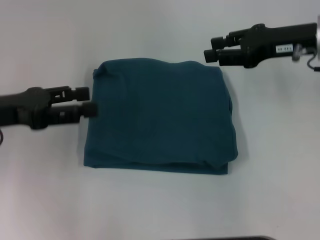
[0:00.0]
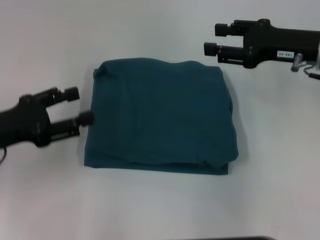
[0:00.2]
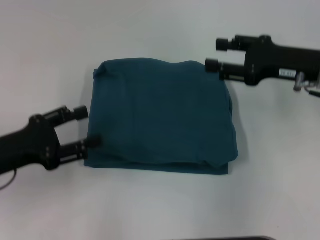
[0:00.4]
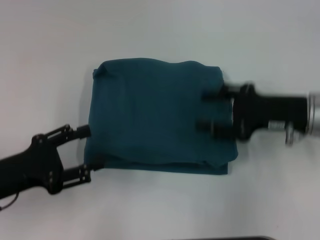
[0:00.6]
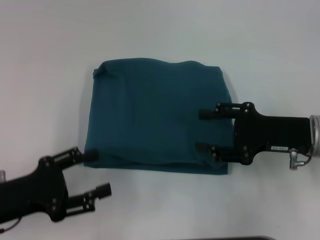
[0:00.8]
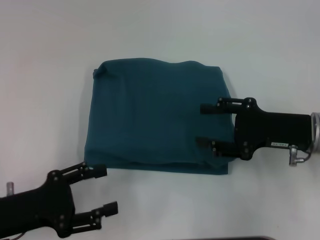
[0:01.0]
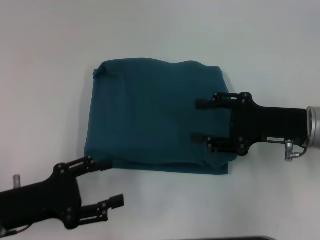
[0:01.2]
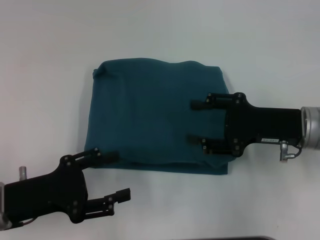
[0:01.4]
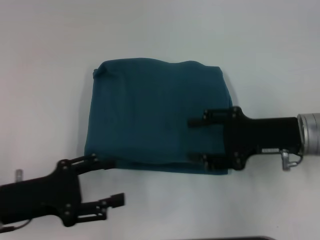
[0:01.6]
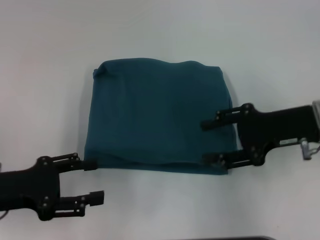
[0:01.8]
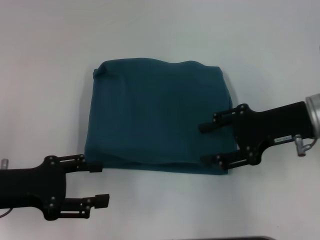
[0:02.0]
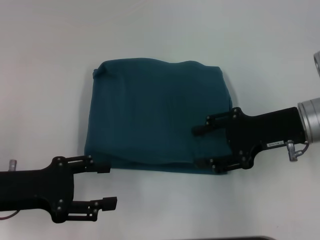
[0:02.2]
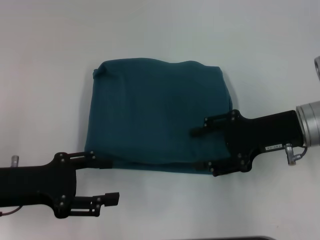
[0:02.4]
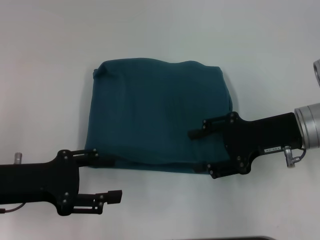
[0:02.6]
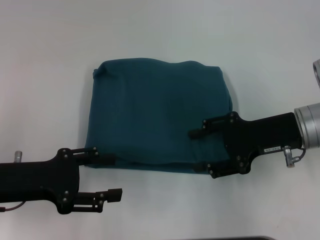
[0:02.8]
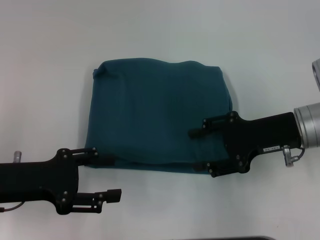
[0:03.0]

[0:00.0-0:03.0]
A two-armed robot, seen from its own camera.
0:00.0 to 0:01.6: The two grippers go about 10 cm backward and downward.
0:01.6 to 0:03.0: The grippers move only a little.

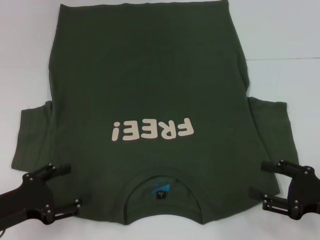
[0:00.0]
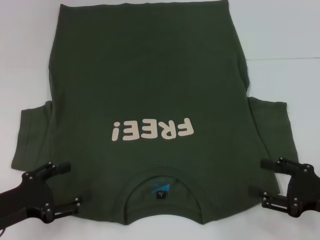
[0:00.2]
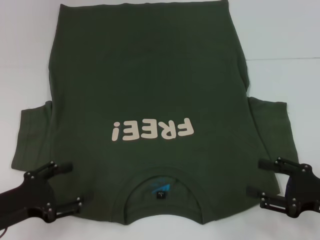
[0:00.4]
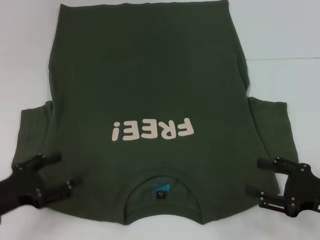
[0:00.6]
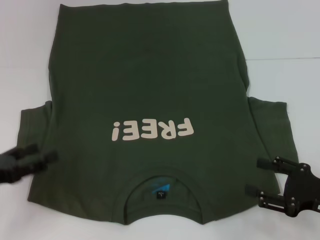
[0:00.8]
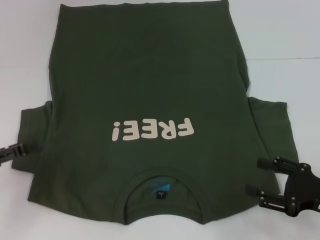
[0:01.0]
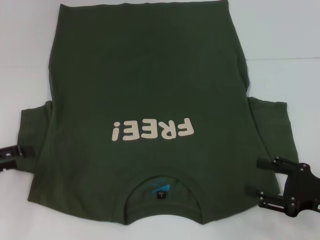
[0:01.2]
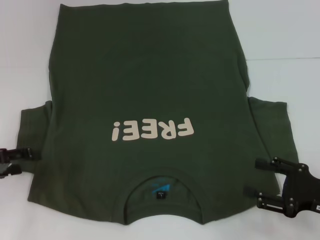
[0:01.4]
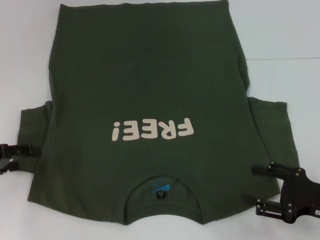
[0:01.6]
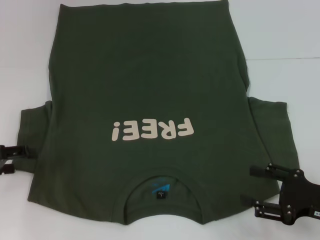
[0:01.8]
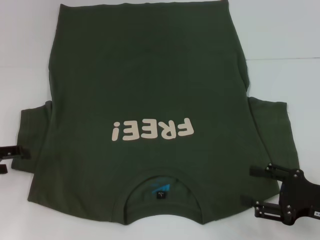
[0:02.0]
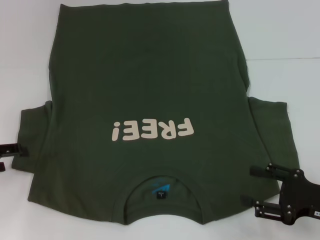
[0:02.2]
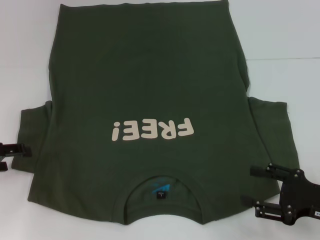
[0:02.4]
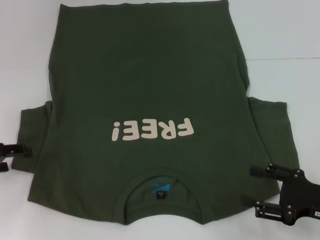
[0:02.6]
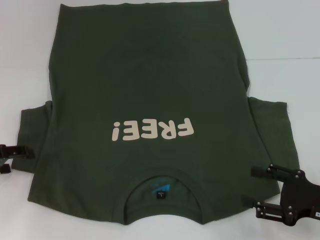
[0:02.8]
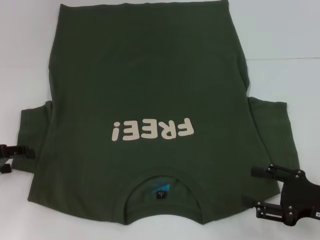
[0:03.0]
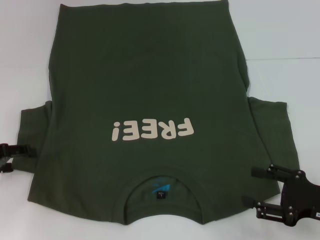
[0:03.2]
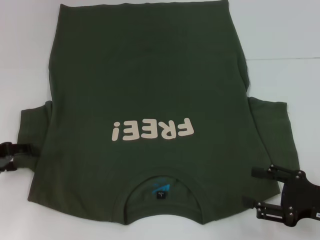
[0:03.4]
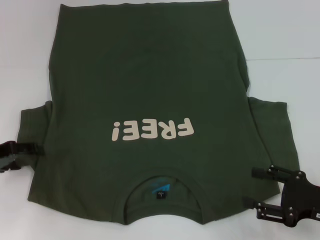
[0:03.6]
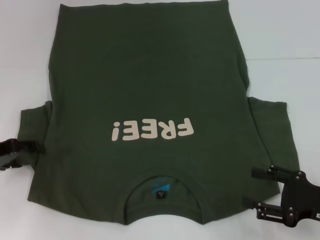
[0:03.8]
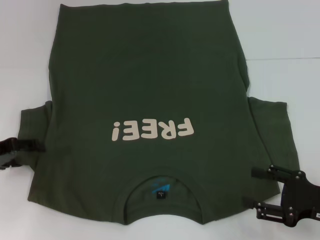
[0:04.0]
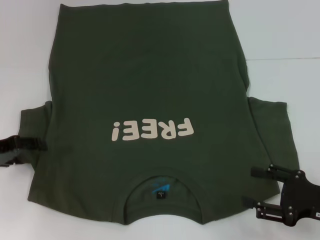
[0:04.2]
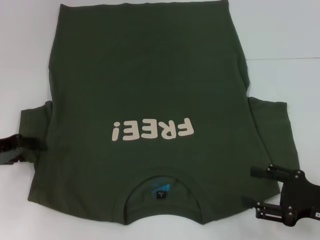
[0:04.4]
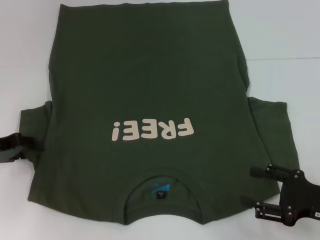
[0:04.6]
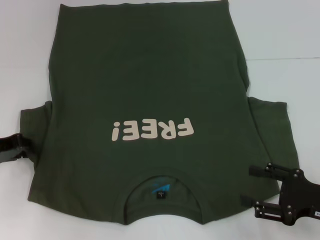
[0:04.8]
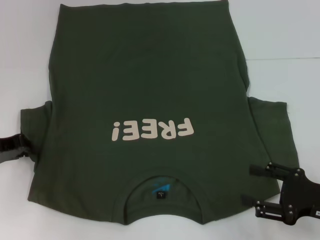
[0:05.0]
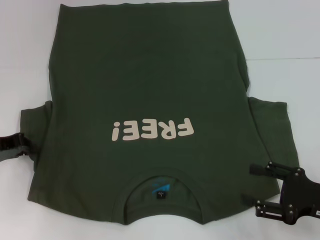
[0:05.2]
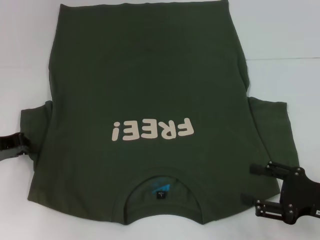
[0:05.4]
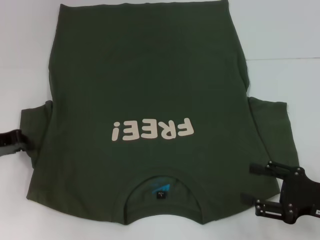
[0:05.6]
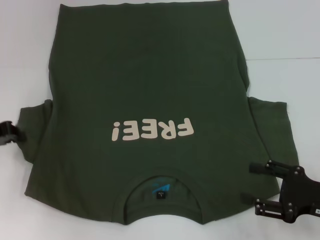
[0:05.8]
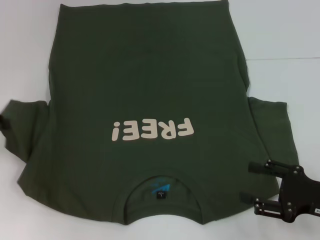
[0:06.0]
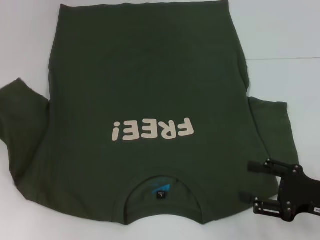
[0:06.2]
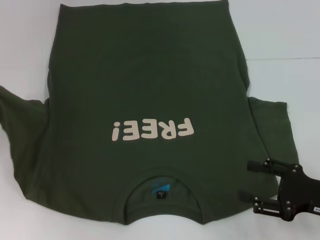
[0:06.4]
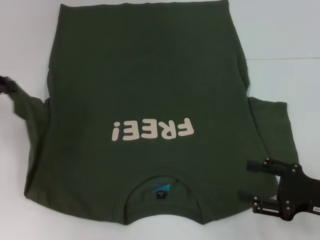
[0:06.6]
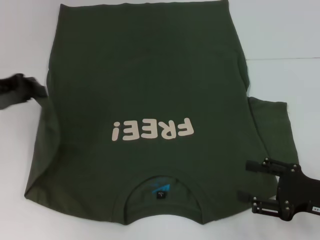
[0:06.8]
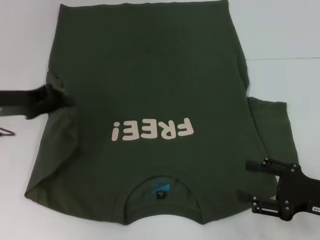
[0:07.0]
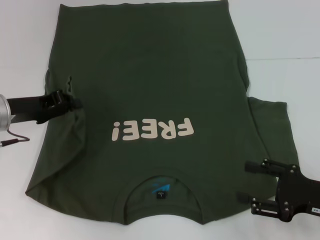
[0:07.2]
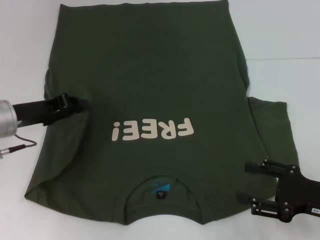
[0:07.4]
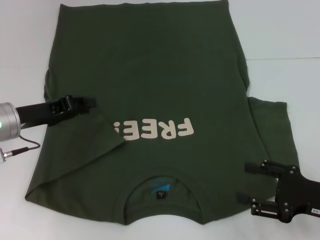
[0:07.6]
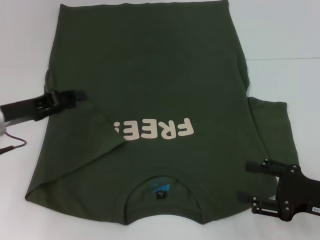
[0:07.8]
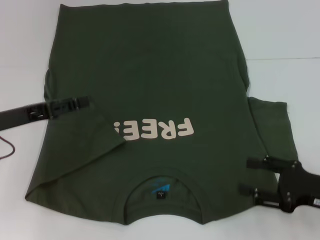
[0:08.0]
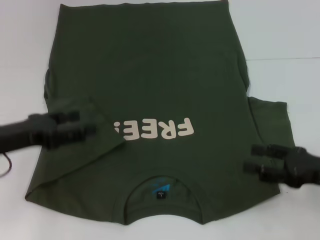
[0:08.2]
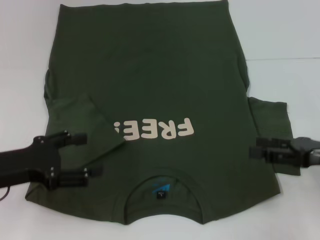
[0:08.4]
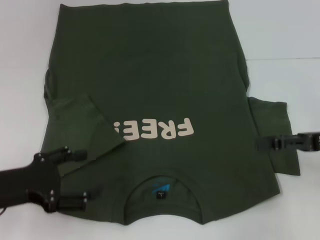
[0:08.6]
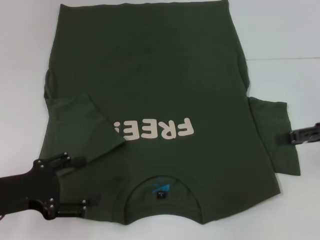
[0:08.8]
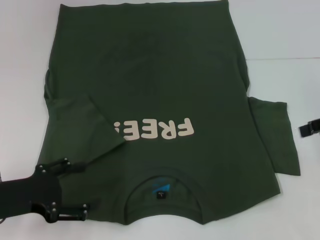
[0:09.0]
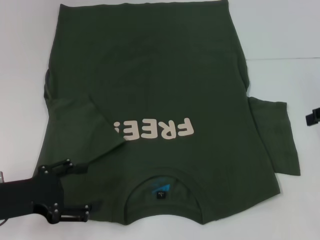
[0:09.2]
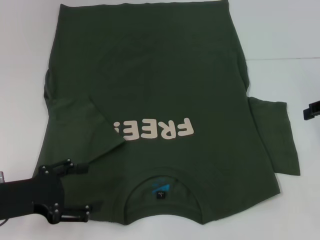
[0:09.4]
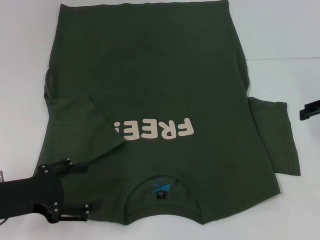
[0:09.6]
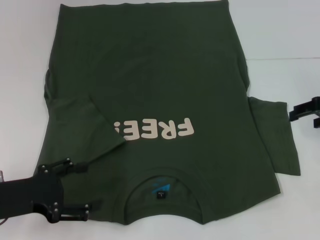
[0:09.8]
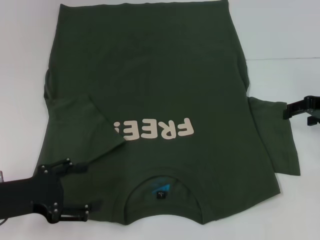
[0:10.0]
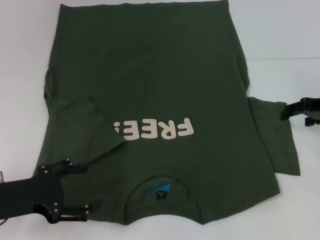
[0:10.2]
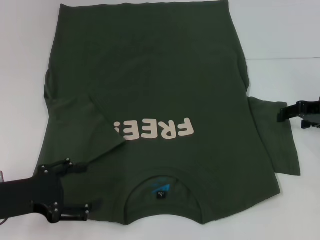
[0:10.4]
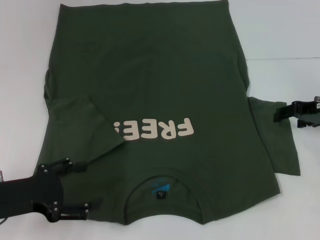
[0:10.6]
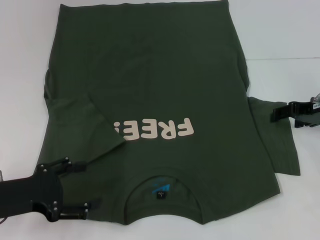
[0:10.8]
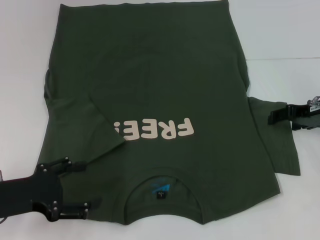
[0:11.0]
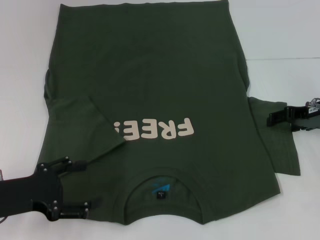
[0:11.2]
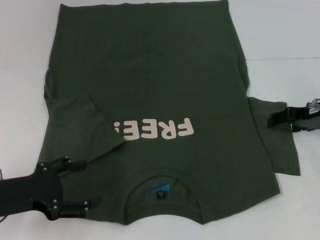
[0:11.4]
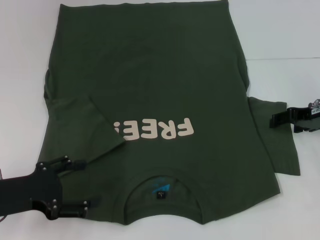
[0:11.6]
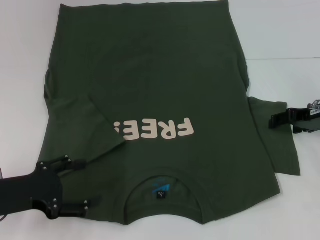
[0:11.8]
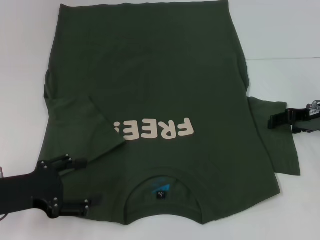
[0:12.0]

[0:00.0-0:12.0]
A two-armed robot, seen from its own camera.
Step, 0:00.0 to 0:08.0: Fold the bottom left sleeve with your left hand.
0:00.0 to 0:01.6: The left gripper heads forward, to the left and upward, covering some 10 cm.
0:01.6 to 0:04.4: The grippers move only a little.
0:04.4 to 0:06.0: The left gripper ends up about 5 cm from where it was, and closes up.
0:06.0 to 0:07.6: The left gripper goes approximately 10 cm to the right.
0:07.6 to 0:09.0: The left gripper shifts approximately 10 cm backward, and opens its fingers; the right gripper moves upward and forward, approximately 20 cm.
0:09.0 to 0:10.4: The right gripper is displaced downward and forward by some 10 cm.
0:10.4 to 0:12.0: The grippers stay close to where they were, moving slightly.

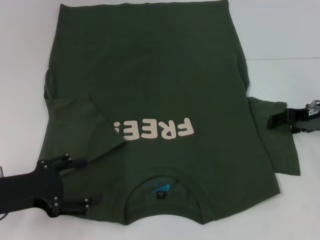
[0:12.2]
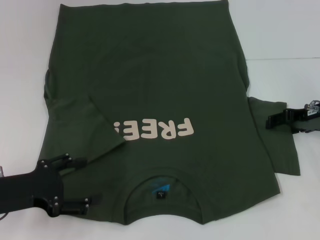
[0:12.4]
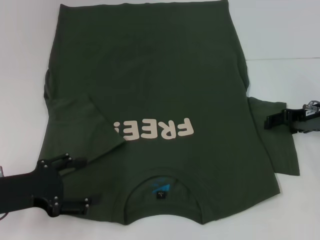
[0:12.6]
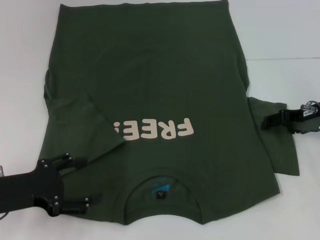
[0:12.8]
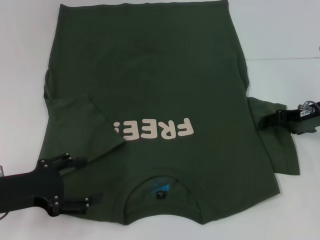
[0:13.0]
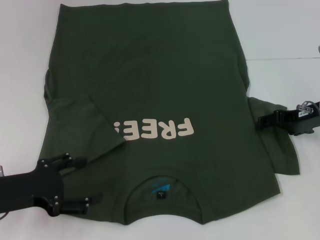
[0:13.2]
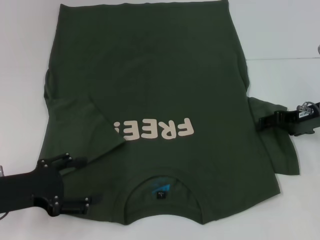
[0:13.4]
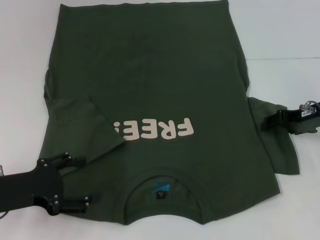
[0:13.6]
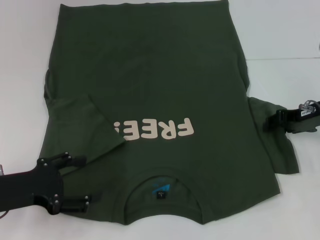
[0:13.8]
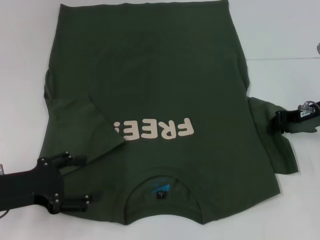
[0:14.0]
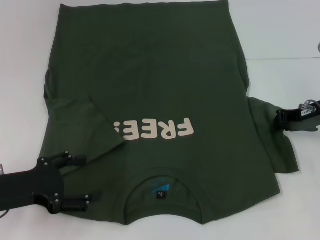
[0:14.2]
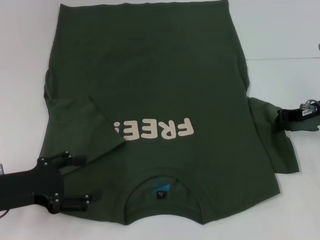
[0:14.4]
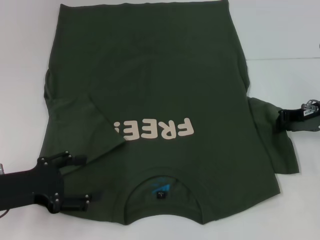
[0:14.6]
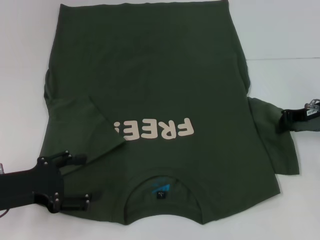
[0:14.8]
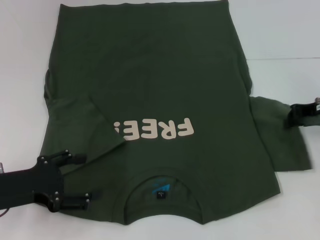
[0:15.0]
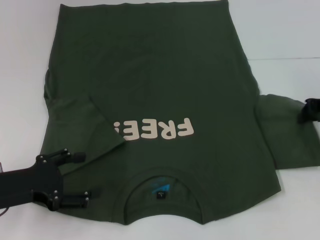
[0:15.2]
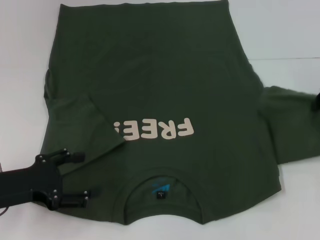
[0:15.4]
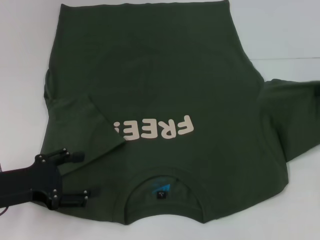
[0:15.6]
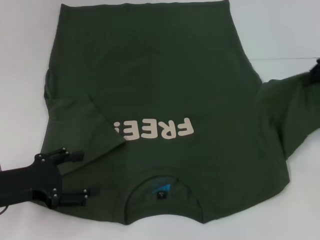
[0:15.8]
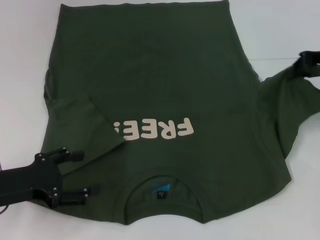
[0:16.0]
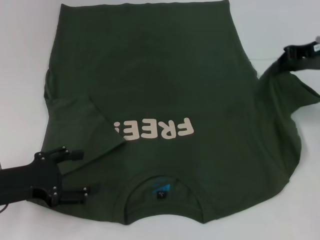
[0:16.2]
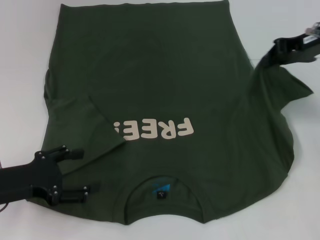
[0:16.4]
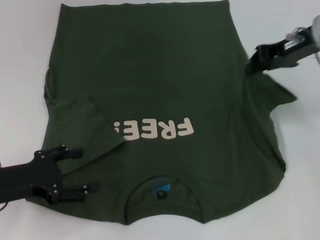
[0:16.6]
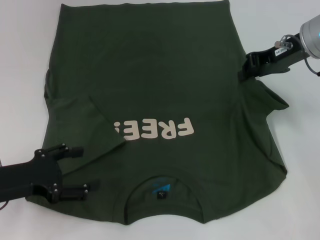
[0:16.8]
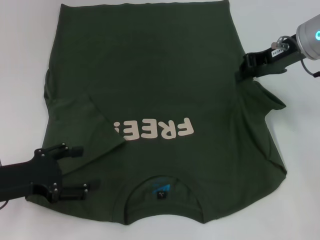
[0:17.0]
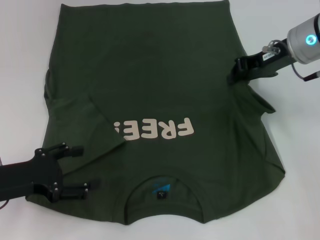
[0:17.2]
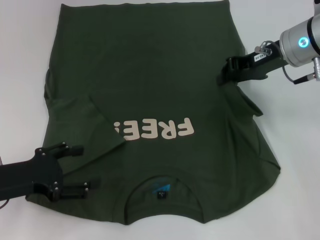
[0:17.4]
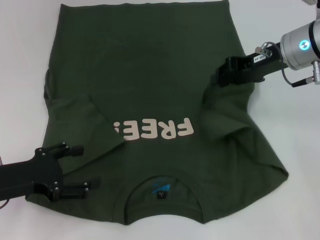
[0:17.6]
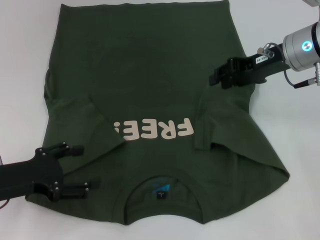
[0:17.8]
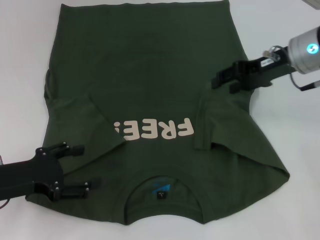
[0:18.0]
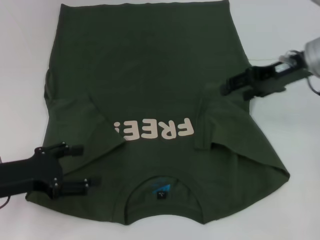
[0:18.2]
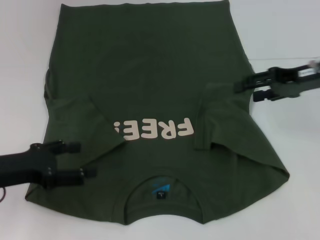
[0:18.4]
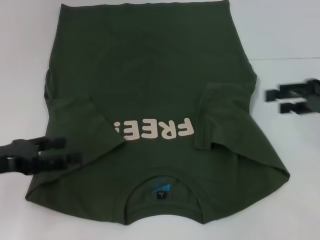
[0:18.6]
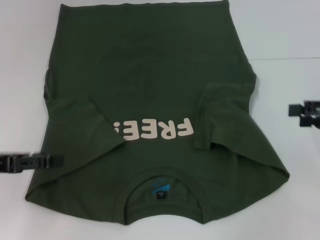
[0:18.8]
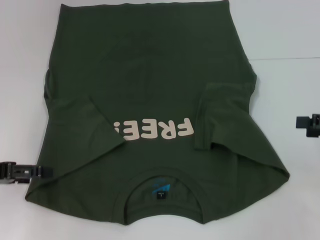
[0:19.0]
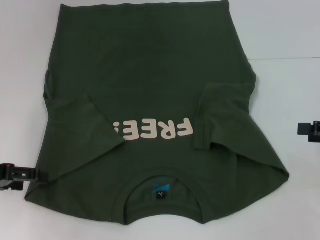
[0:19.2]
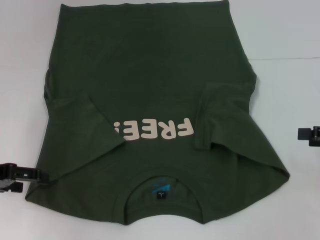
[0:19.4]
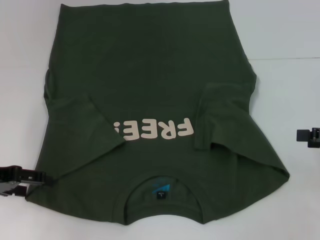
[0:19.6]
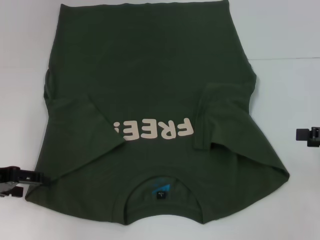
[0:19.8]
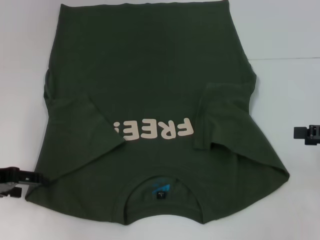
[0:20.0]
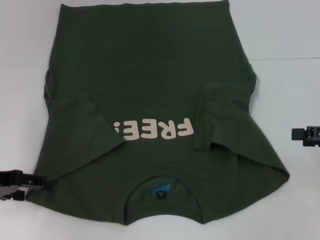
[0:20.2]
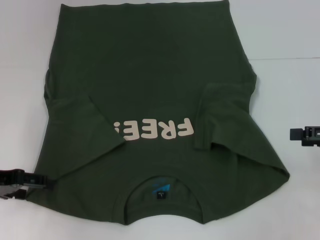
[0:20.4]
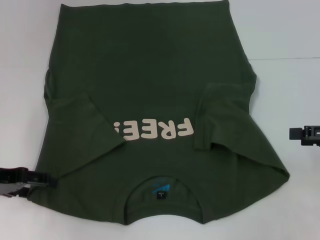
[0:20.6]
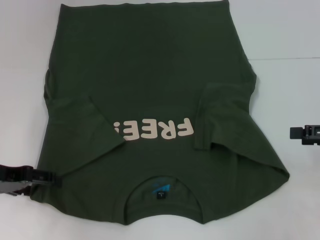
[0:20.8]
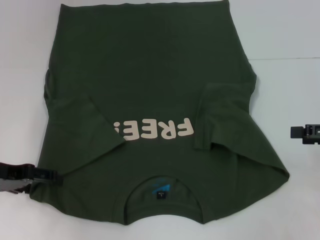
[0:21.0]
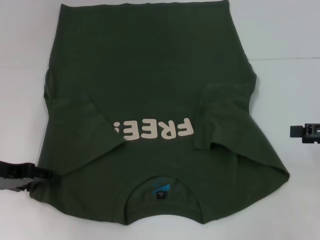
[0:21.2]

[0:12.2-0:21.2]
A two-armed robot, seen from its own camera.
Step, 0:12.2 to 0:18.0: Fold the bottom right sleeve with your right hand.
0:12.2 to 0:13.8: Both grippers stay put.
0:13.8 to 0:15.2: The right gripper shifts by about 5 cm, and closes its fingers.
0:15.2 to 0:16.6: The right gripper shifts about 10 cm to the left and upward.
0:16.6 to 0:18.2: The right gripper opens its fingers.
0:18.2 to 0:19.8: The left gripper shifts by some 5 cm. Meanwhile the right gripper goes approximately 20 cm to the right, backward and downward.
0:19.8 to 0:21.2: The grippers stay close to where they were, moving slightly.
